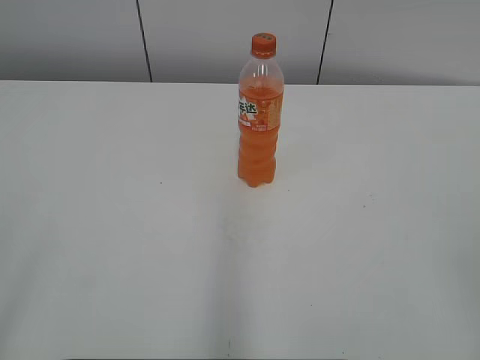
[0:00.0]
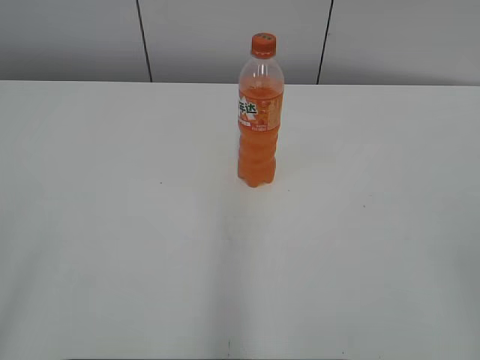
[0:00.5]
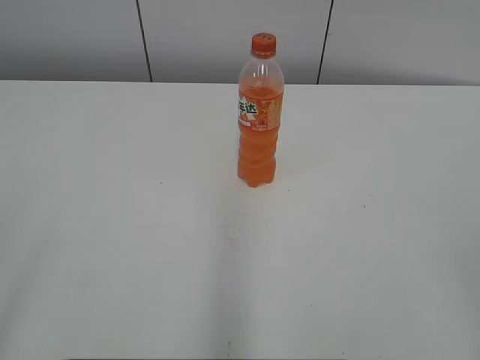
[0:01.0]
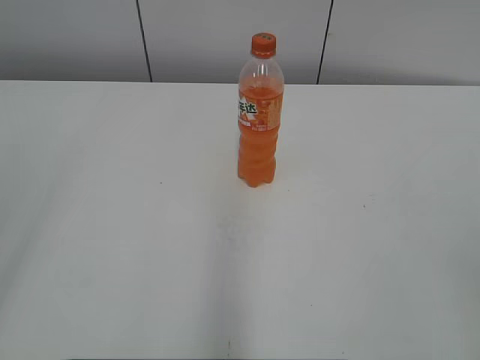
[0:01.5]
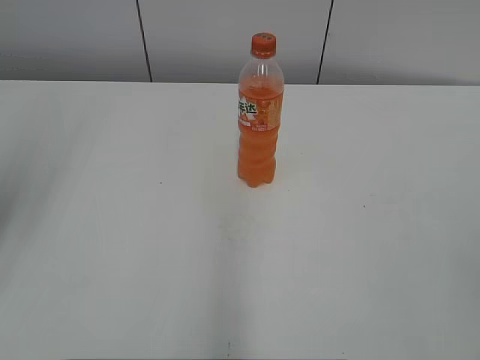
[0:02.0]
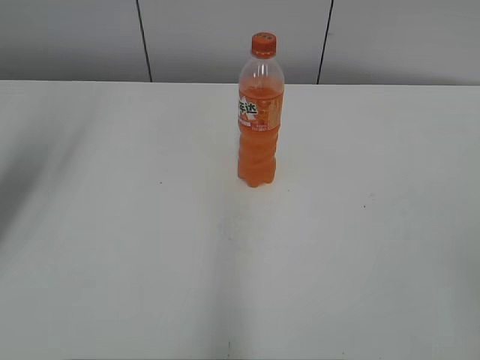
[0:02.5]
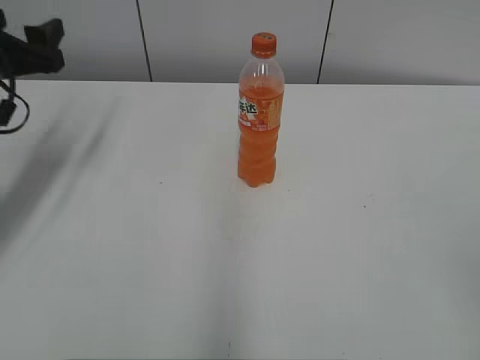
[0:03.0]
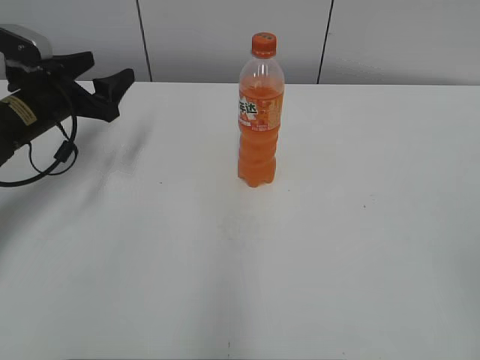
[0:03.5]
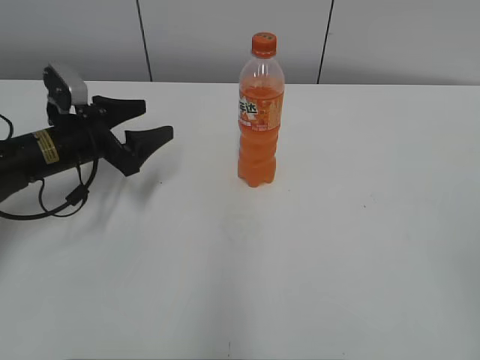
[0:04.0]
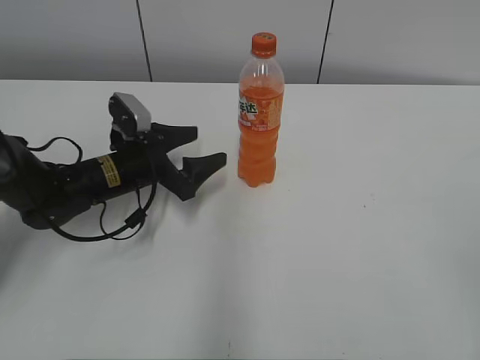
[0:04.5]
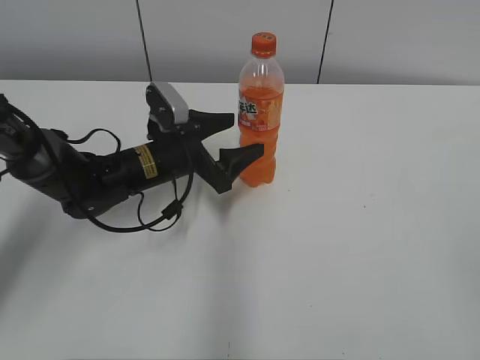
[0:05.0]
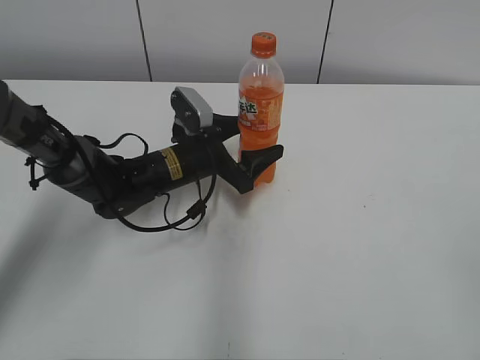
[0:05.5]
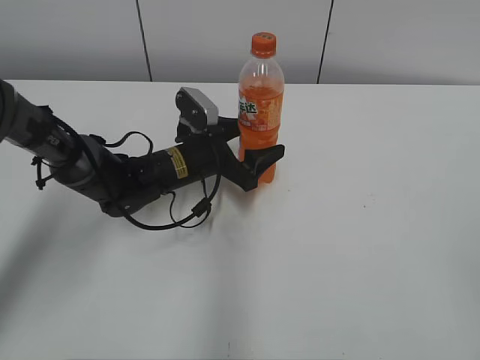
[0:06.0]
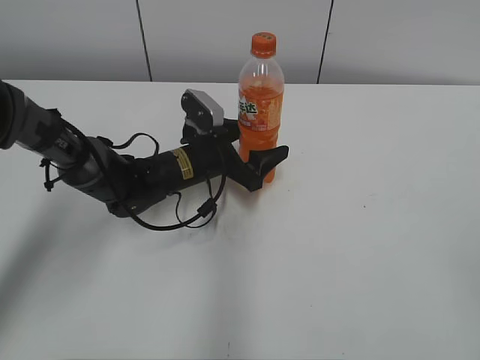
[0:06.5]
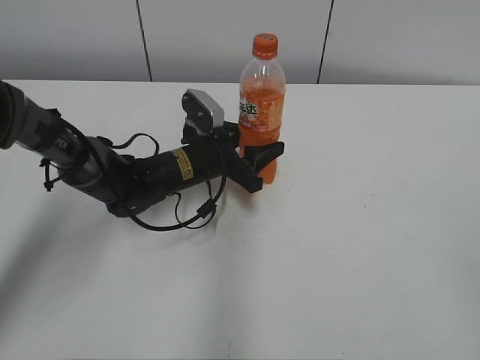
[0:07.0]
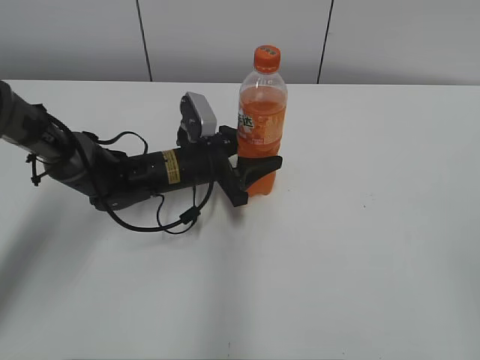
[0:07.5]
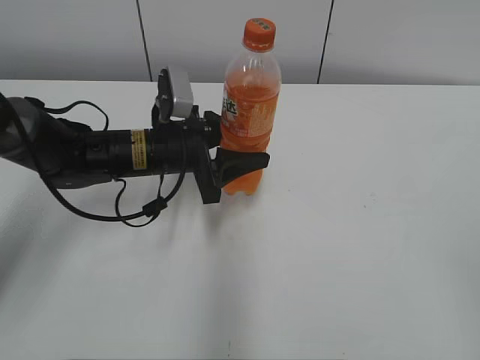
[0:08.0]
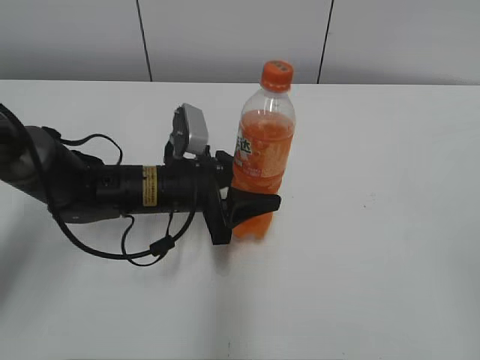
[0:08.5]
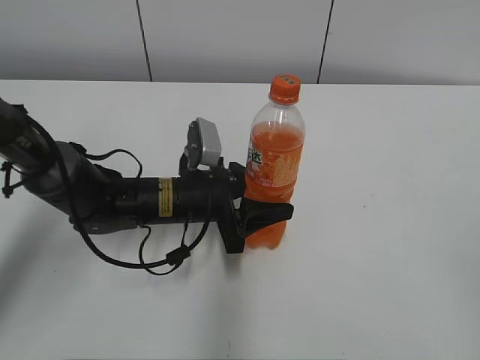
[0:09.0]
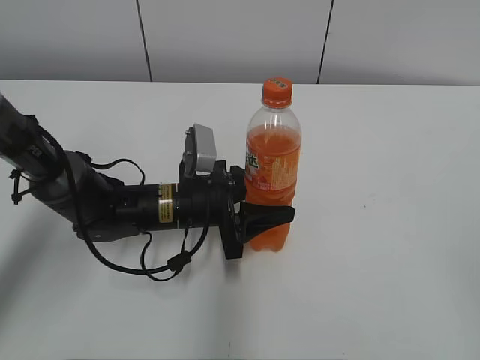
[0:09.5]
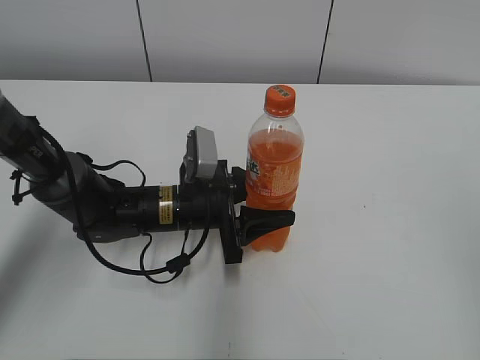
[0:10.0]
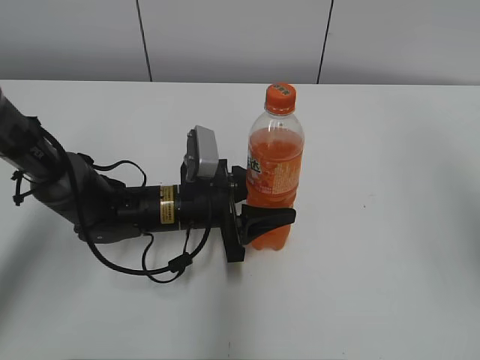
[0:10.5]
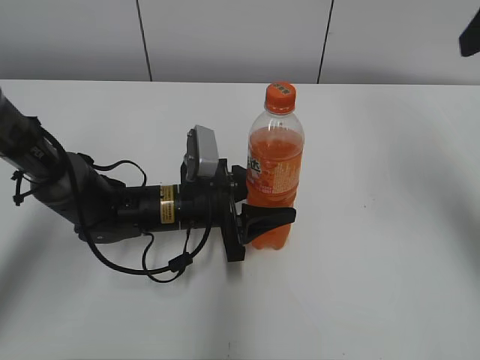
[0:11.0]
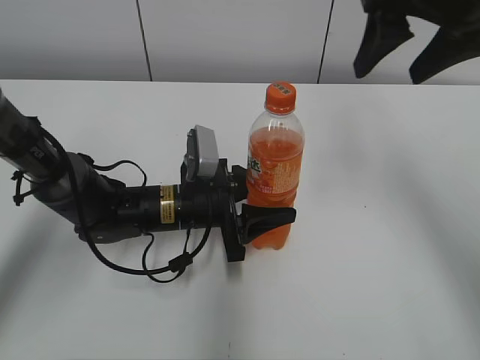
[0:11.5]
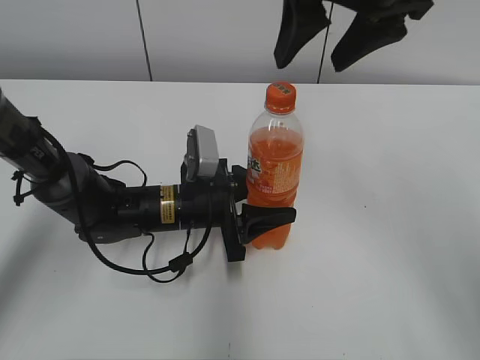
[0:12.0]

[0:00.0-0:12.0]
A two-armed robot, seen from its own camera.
Step, 0:00.0 to 0:06.5: Grab the Mirinda with the left hand.
Step, 0:07.0 to 0:10.5: Move the Mirinda from left to right.
0:02.0 to 0:04.0: The left gripper heads downward and forward, covering approximately 30 cm.
0:04.0 to 0:06.0: The left gripper moves to the right, approximately 15 cm.
0:06.0 to 0:08.0: The left gripper travels upward by about 5 cm, and closes.
0:08.0 to 0:10.0: The left gripper shifts some 5 cm downward. The right gripper ends up about 5 cm from where it was.
0:10.0 to 0:12.0: The right gripper moves forward and to the left, approximately 35 cm.

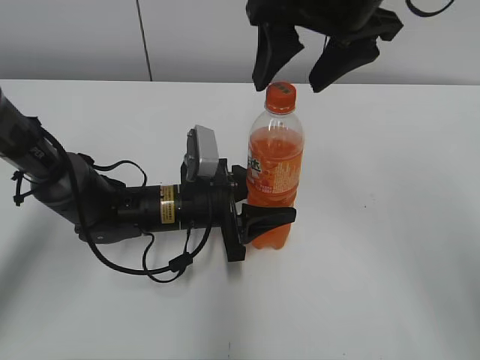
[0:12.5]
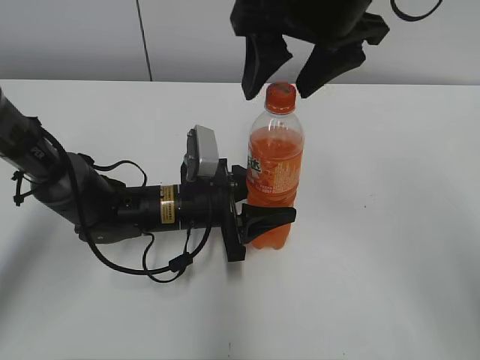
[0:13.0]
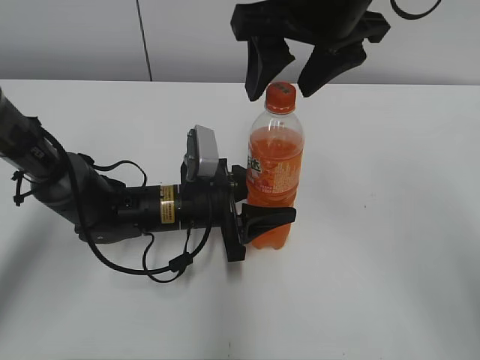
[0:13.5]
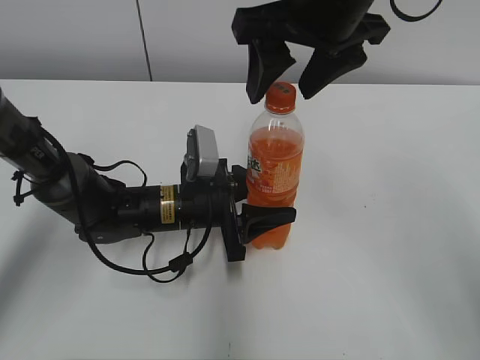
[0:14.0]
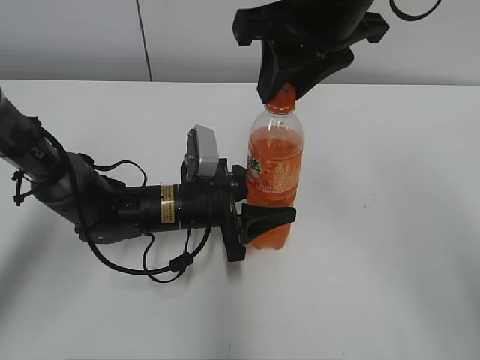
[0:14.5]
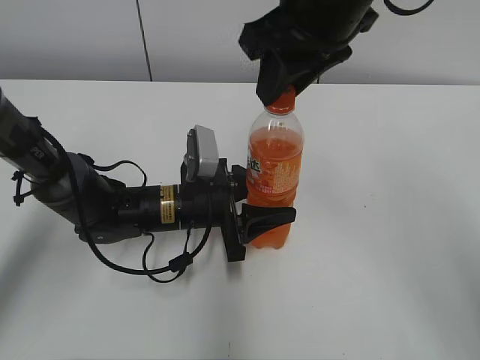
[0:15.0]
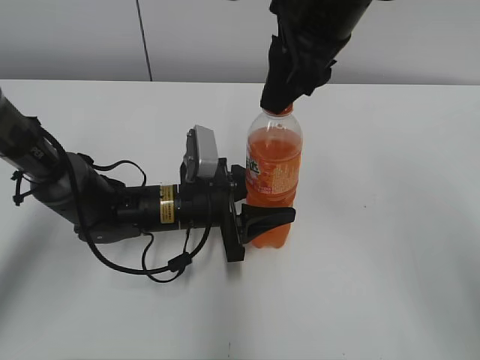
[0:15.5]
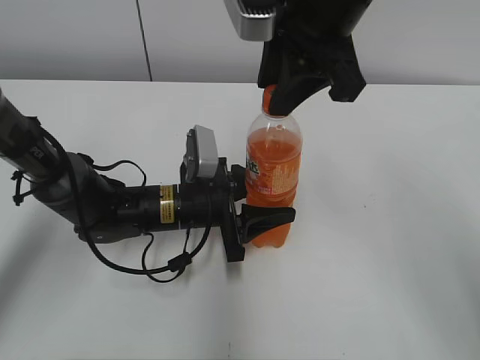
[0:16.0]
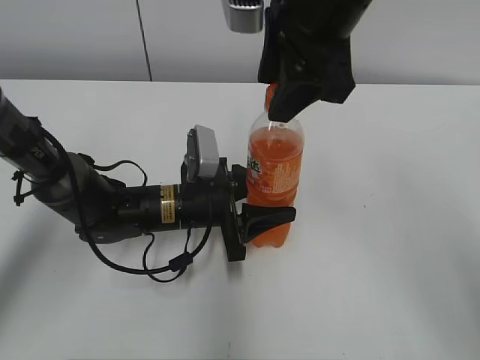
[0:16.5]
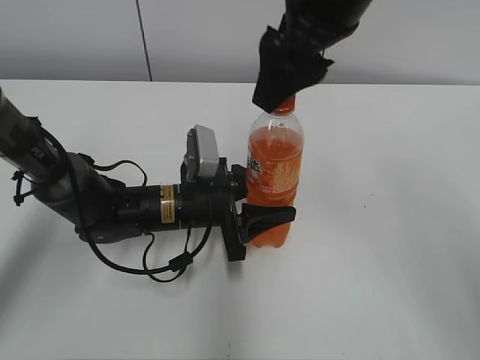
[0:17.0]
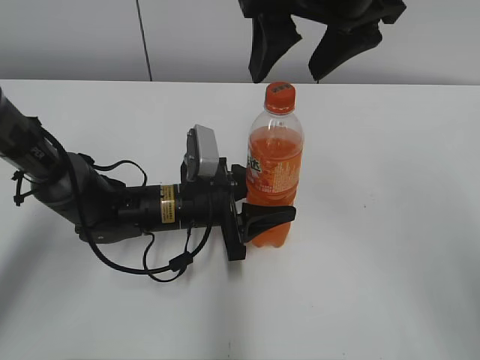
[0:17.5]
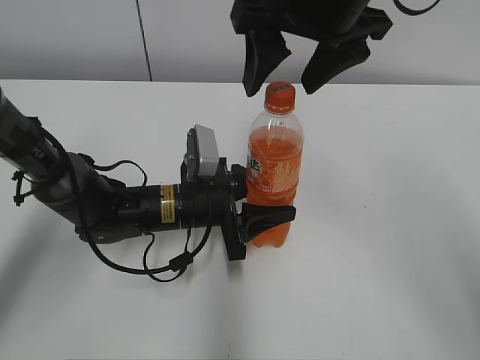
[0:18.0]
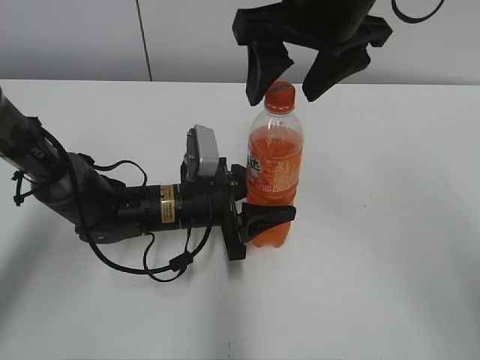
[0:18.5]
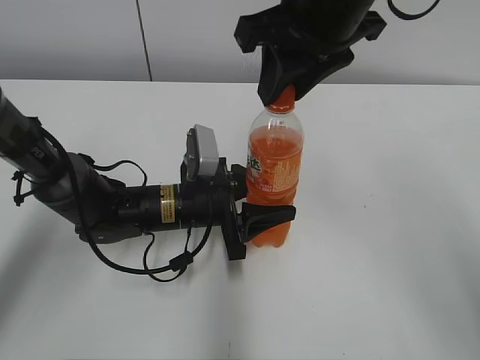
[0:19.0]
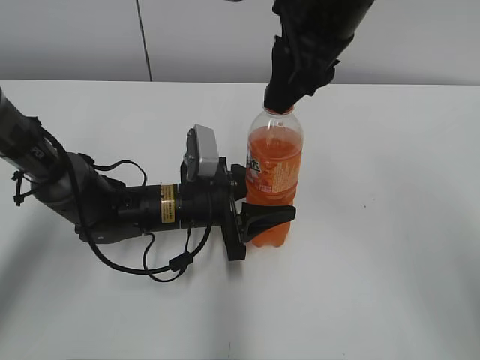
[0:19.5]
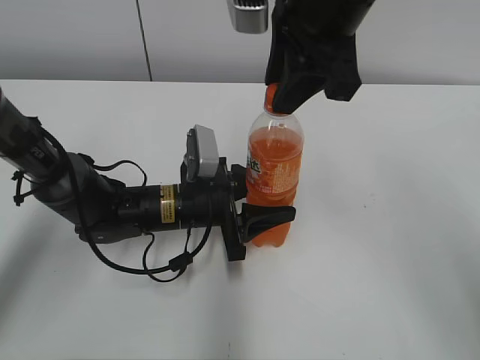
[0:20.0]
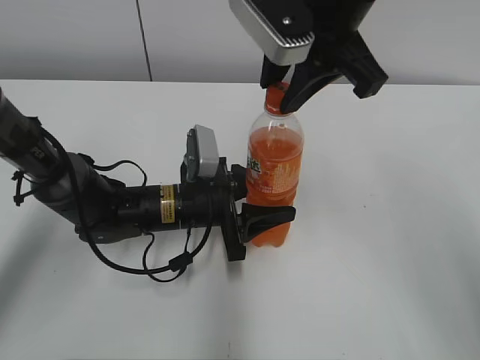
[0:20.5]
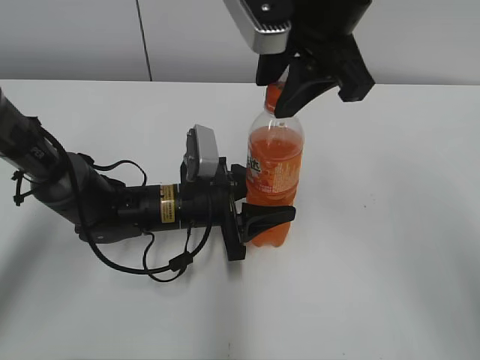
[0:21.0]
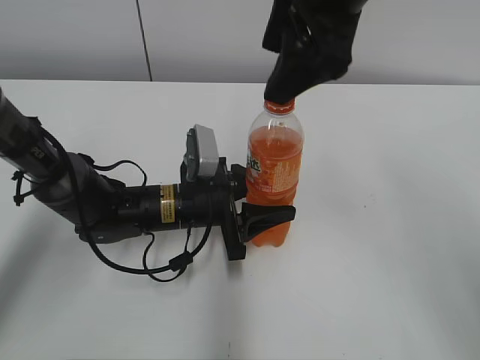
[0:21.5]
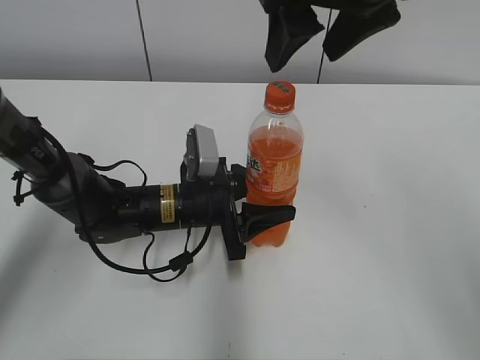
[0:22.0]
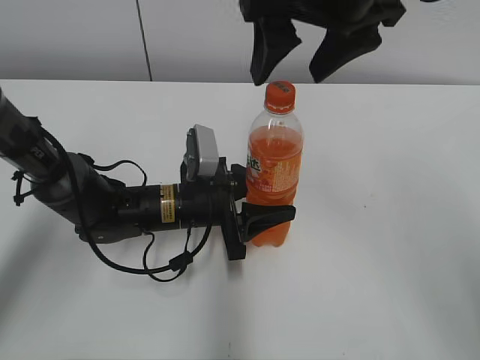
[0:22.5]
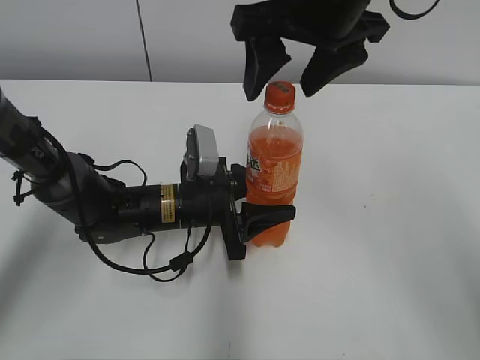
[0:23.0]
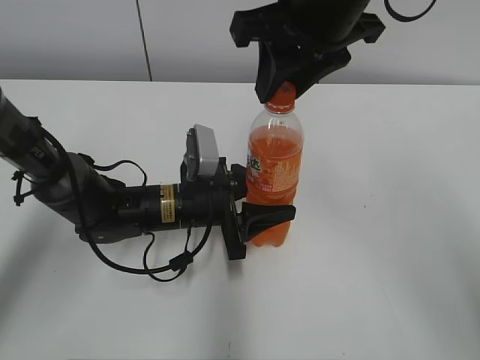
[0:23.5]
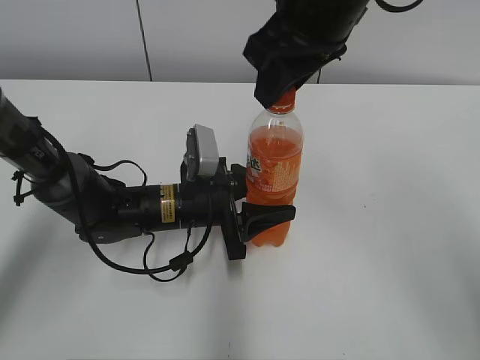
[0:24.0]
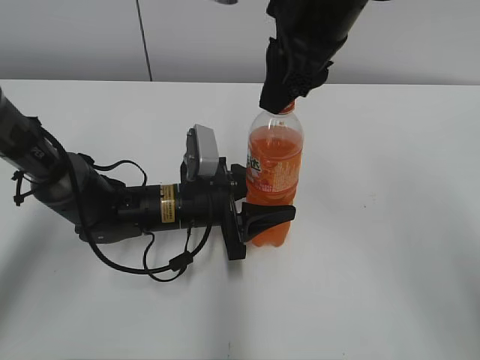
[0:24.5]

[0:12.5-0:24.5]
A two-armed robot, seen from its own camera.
0:12.5 to 0:14.5: The right gripper closes its fingers.
0:14.5 to 0:16.5: The right gripper opens up.
0:18.5 to 0:20.5: The right gripper closes.
0:20.5 to 0:22.5: The right gripper opens its fingers.
0:22.5 to 0:24.5: The right gripper closes up.

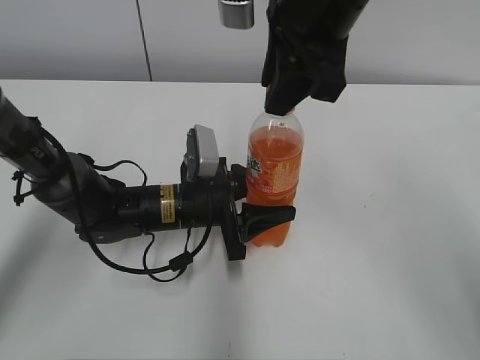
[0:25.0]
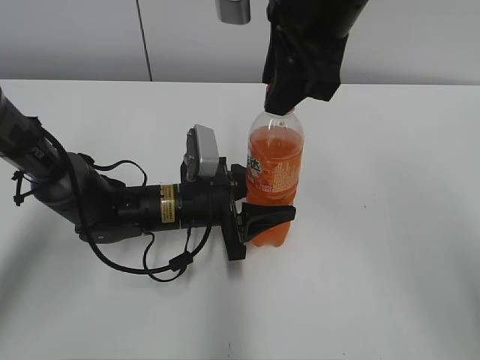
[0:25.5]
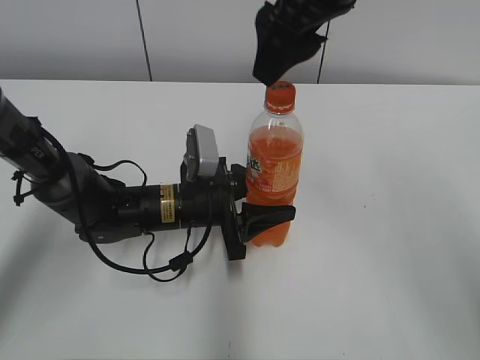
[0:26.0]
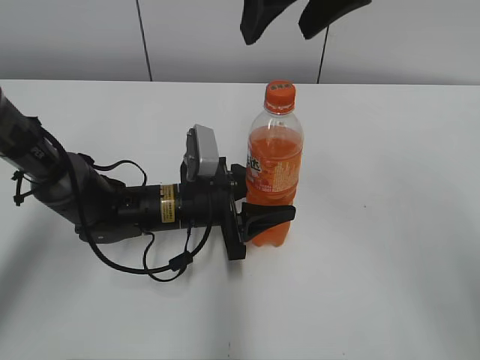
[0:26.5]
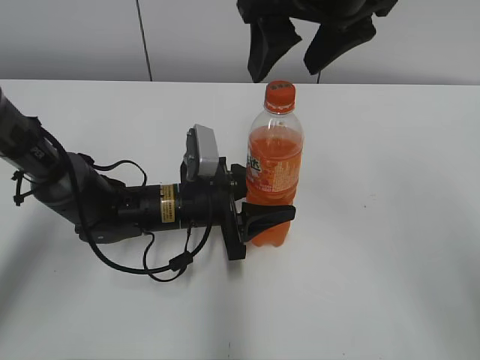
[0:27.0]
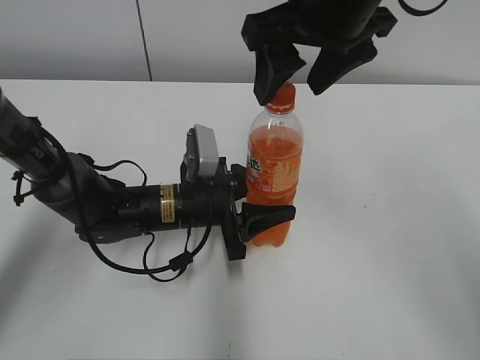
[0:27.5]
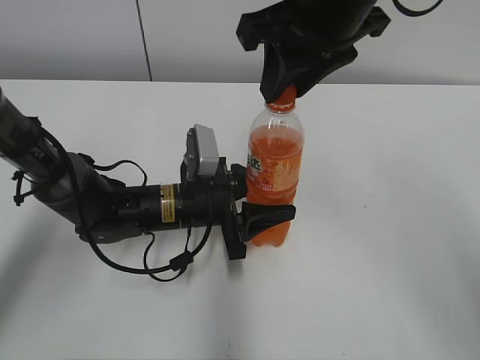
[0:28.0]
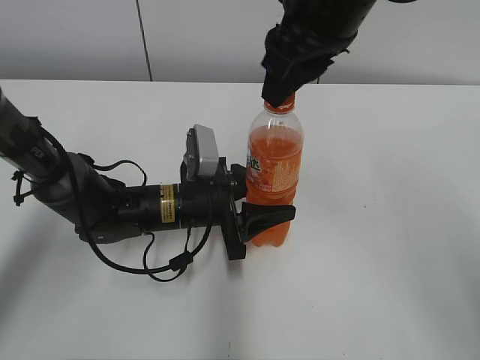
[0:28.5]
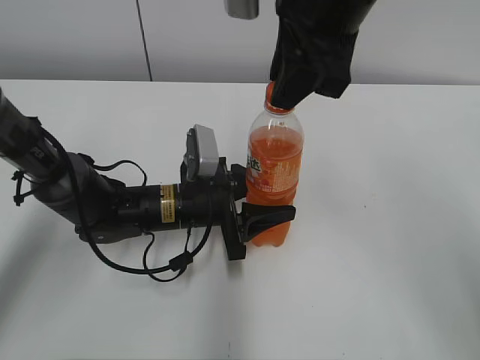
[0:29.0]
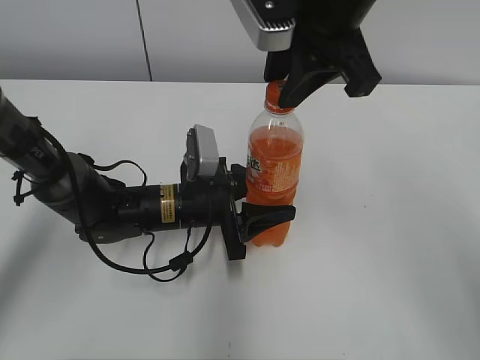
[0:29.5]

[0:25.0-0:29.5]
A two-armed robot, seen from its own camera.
0:25.0 to 0:27.0: The right gripper opens its fingers.
0:27.0 to 0:29.5: The right gripper closes.
